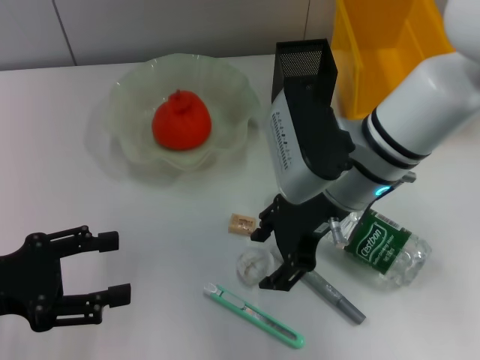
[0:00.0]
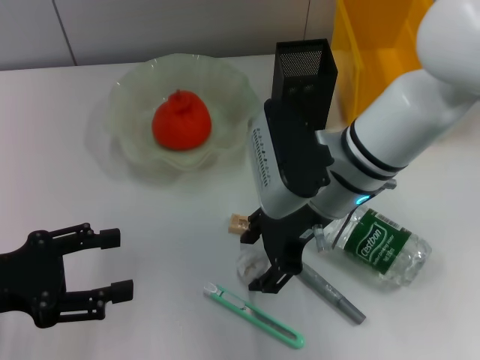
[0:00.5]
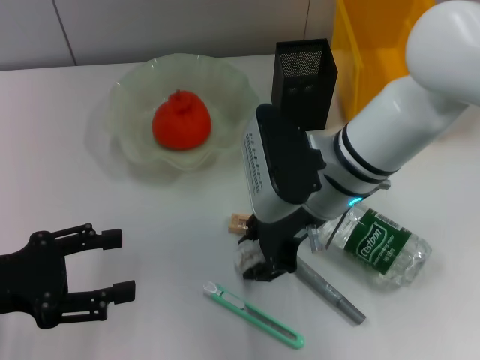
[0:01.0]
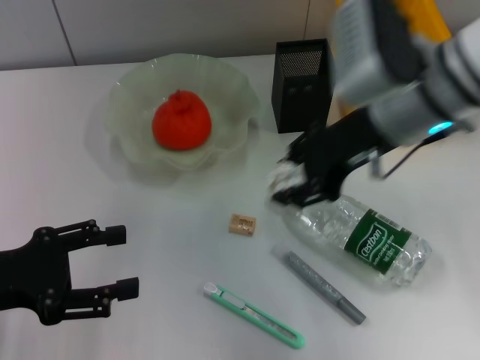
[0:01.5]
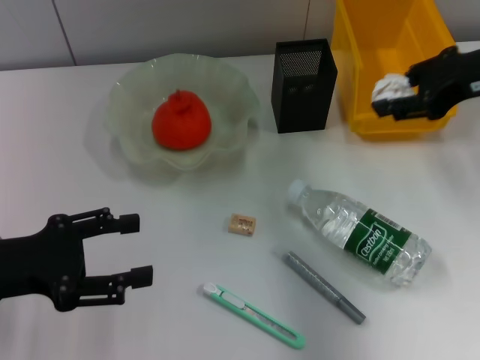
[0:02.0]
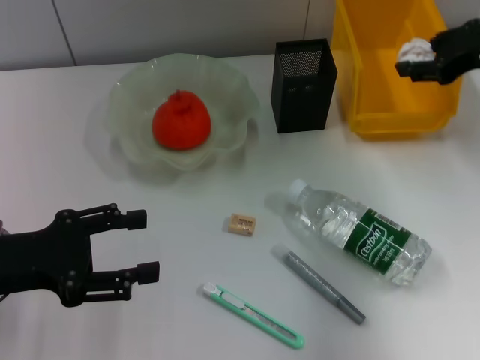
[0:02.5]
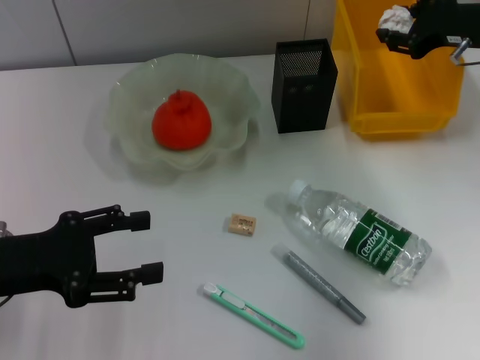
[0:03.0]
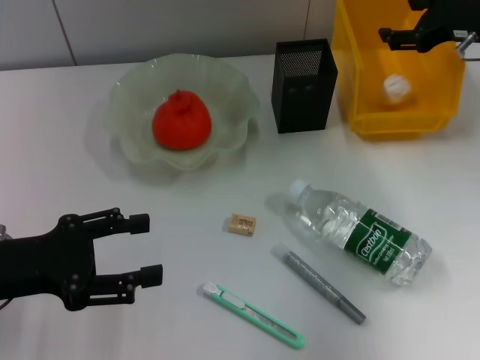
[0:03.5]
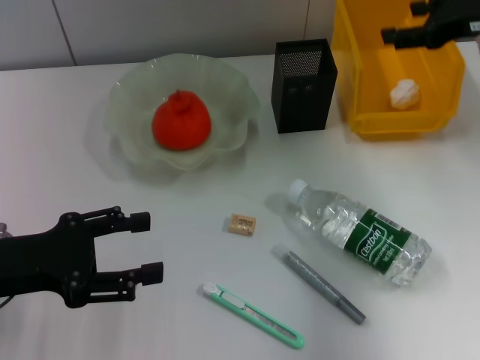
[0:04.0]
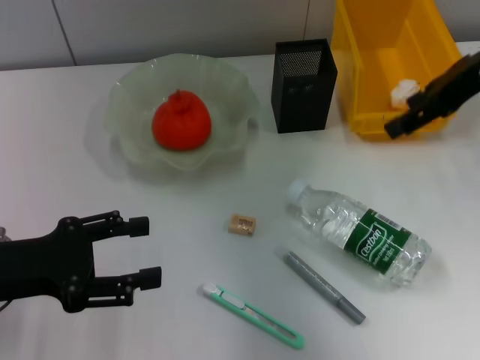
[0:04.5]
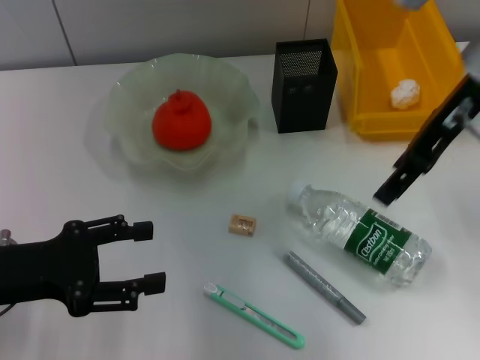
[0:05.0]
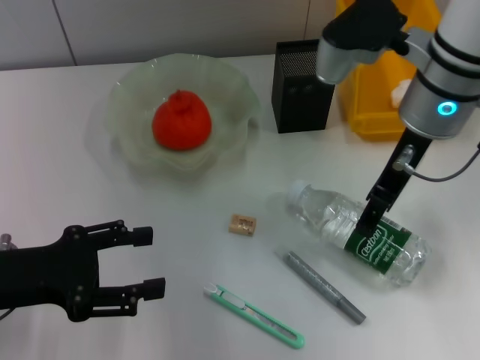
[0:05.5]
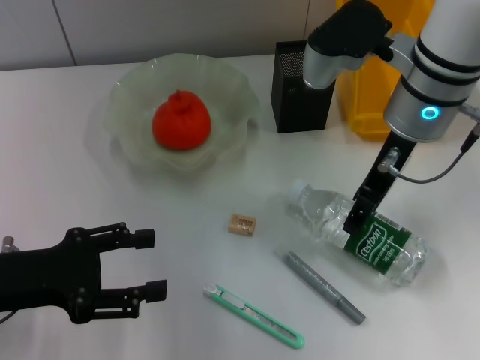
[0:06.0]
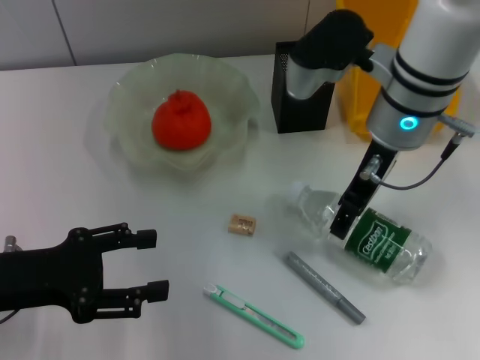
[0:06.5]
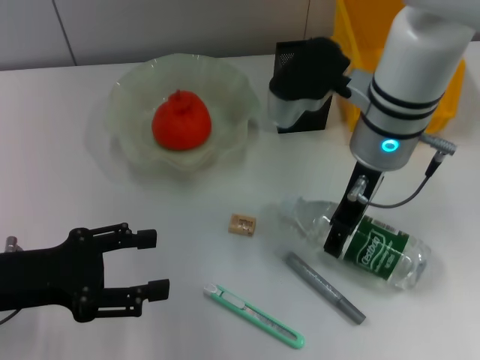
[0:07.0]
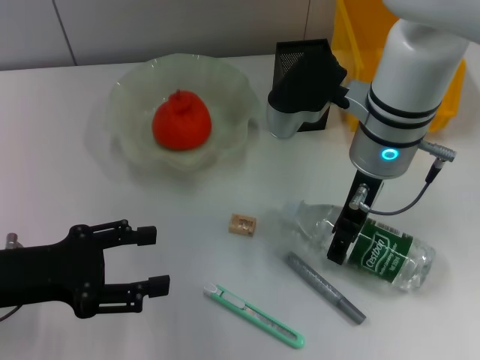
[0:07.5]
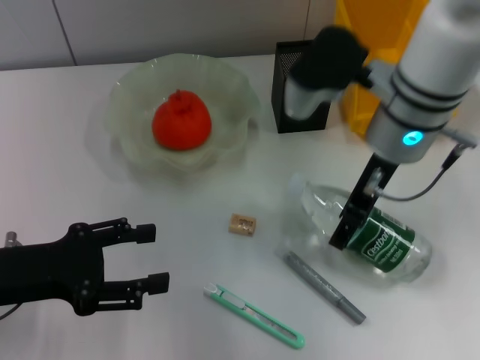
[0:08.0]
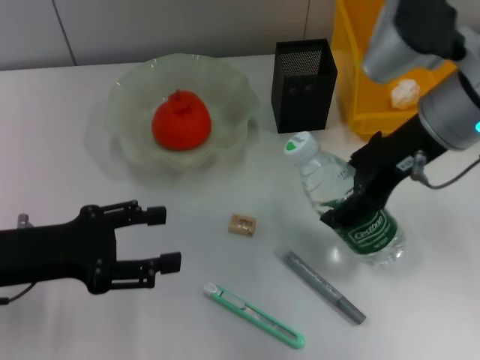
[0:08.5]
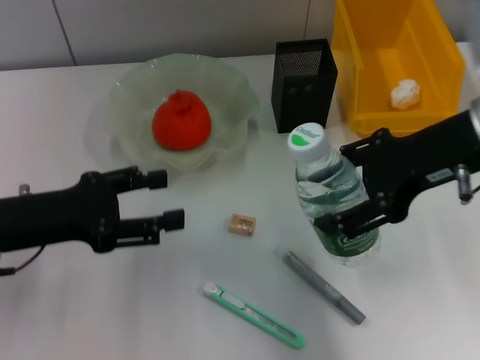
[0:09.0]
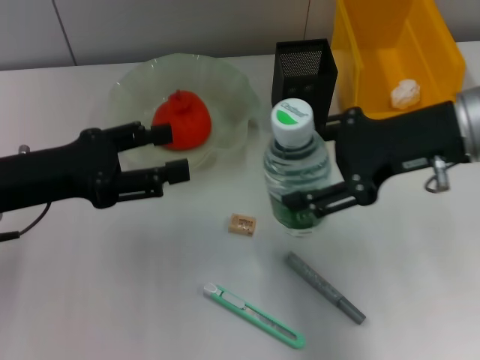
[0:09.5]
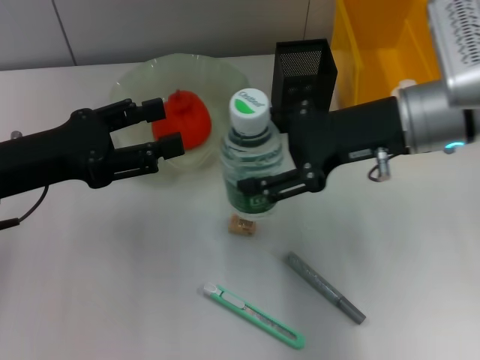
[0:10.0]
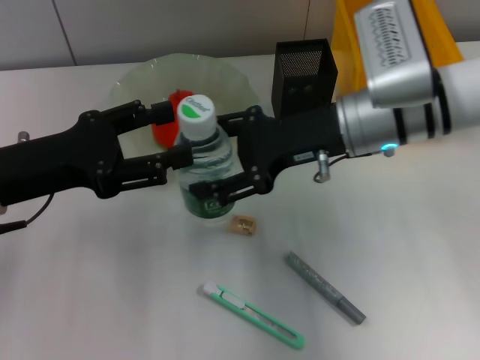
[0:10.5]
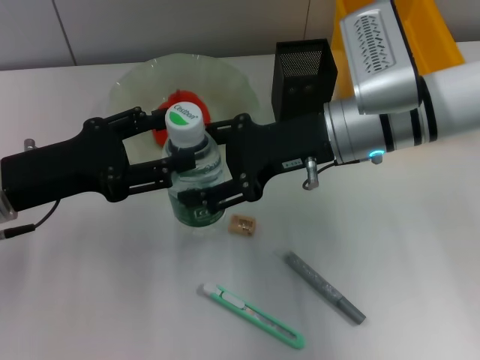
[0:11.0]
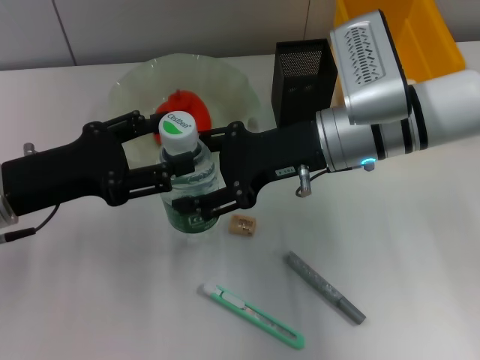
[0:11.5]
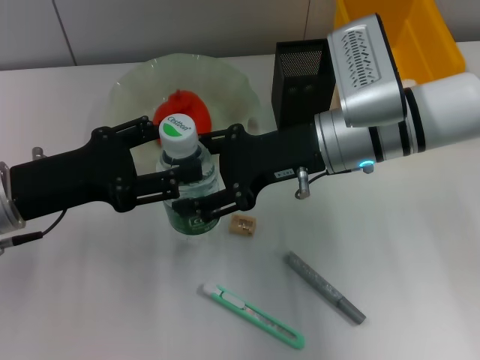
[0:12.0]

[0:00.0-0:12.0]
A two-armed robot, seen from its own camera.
Step, 0:01.5 to 0:03.0: Place the paper ball into the trash can with the right hand.
Step, 0:04.0 to 0:07.5: Grab the water bottle with the right hand.
0:00.0 to 0:02.0: The right gripper shifts approximately 20 cm to the right and upward, and closes up.
0:02.0 to 0:04.0: The right gripper opens up.
0:04.0 to 0:06.0: The right gripper moves to the left, some 15 cm.
0:06.0 to 0:08.0: The grippers make only small movements.
0:08.0 to 0:10.0: The left gripper travels forward by roughly 5 cm.
0:10.0 to 0:12.0: The right gripper moves to the left, approximately 5 cm.

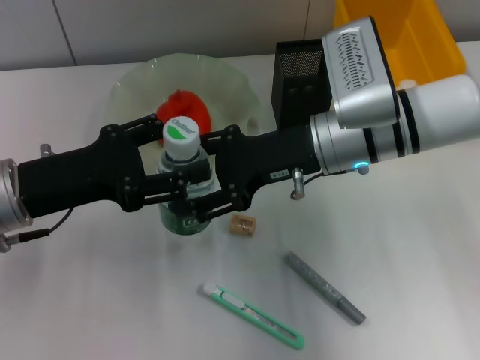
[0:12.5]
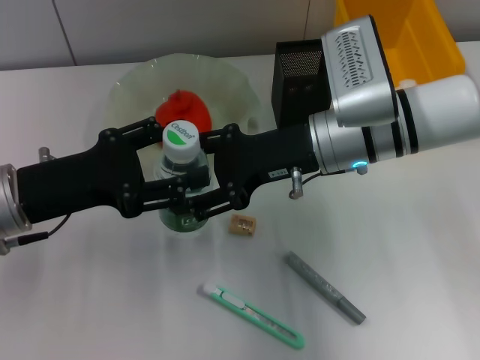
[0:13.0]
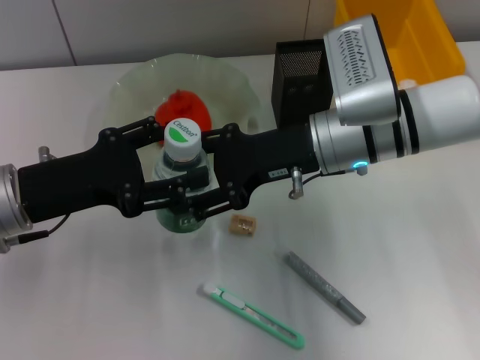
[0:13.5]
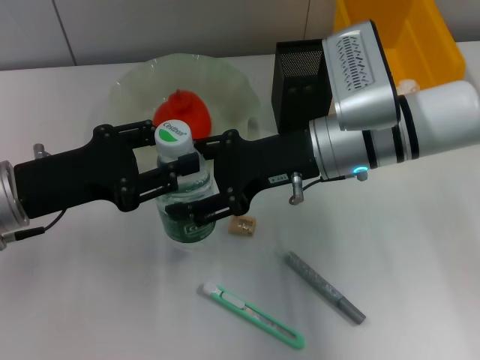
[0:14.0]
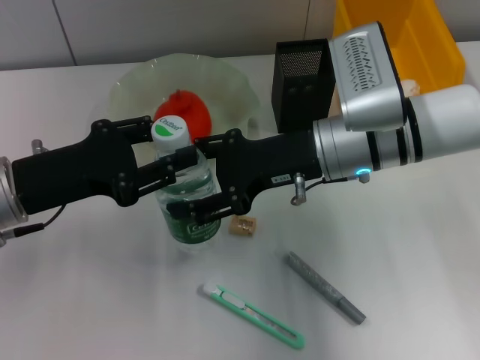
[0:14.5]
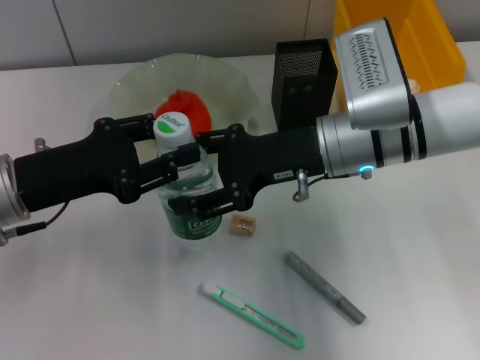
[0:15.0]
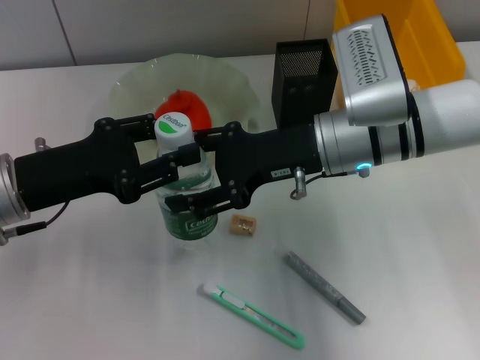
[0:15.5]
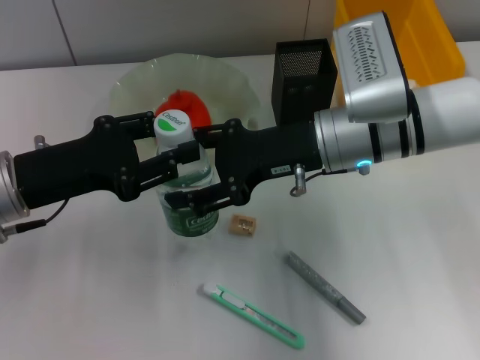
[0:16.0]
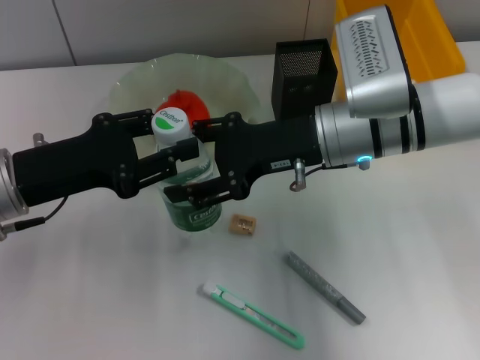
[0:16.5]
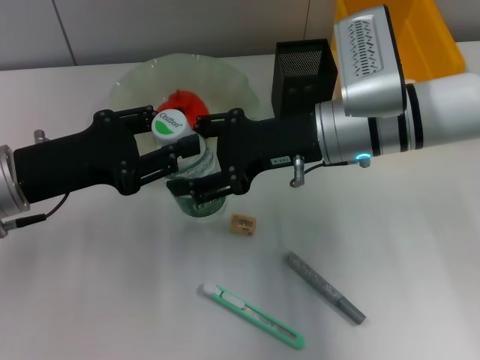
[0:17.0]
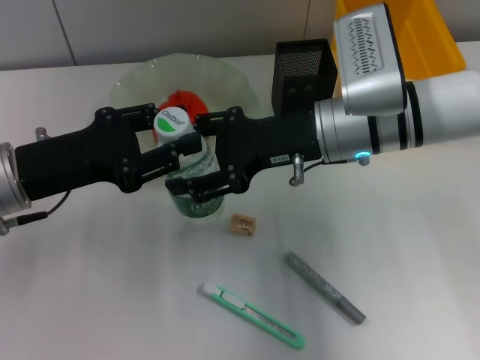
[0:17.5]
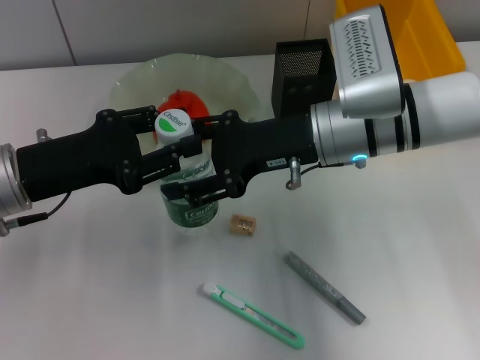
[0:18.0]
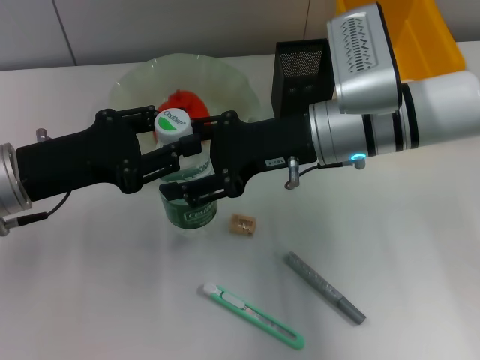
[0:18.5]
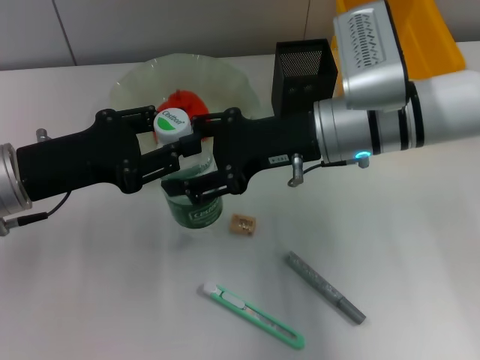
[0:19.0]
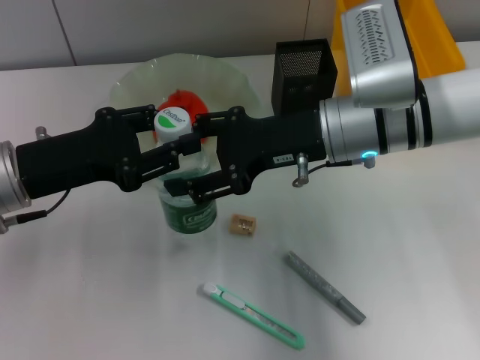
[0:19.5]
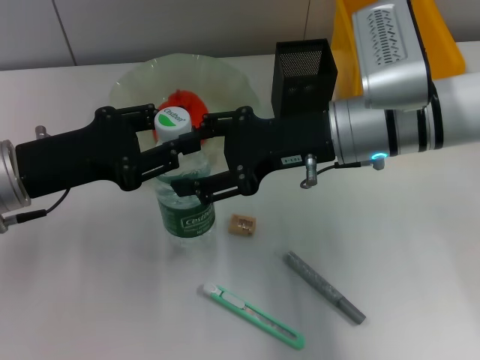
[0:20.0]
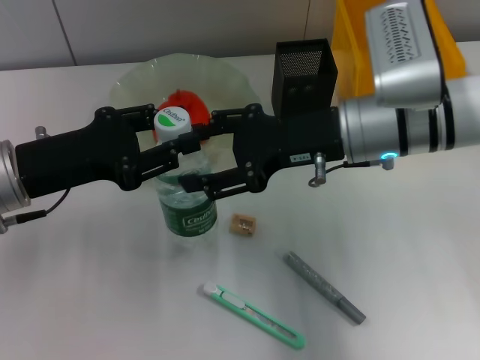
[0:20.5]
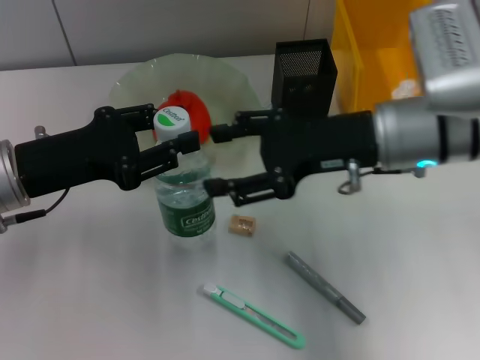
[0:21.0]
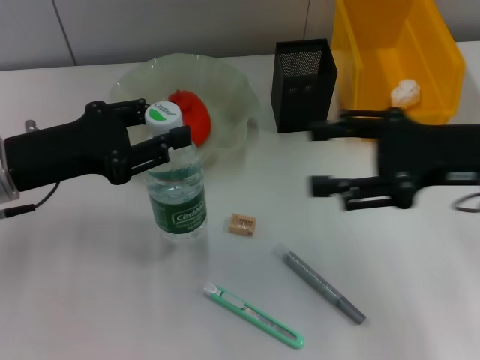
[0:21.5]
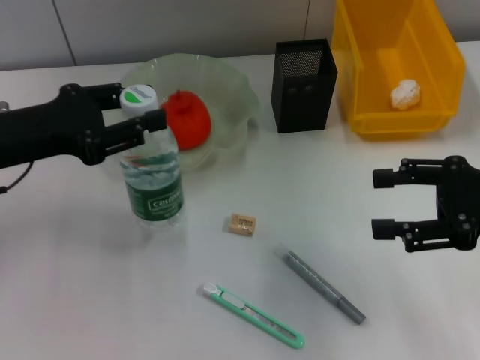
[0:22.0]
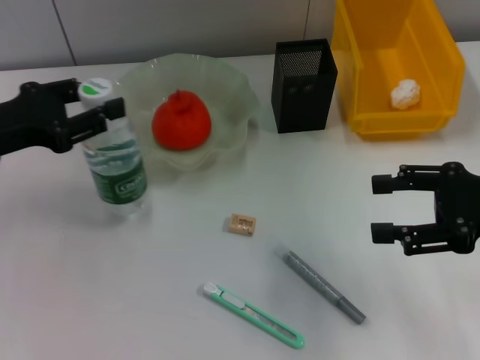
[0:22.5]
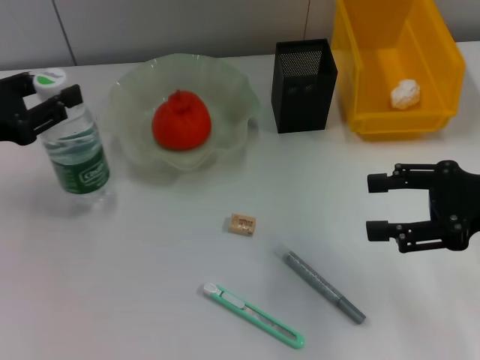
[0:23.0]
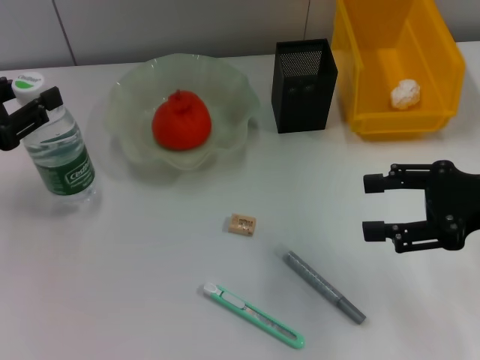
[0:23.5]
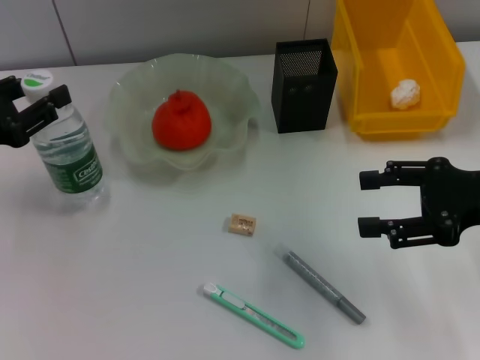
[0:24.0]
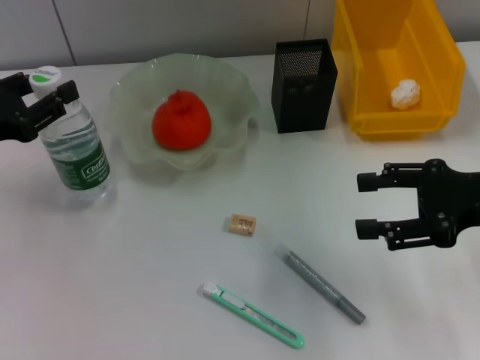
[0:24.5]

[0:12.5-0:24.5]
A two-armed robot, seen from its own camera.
Step, 0:12.5 to 0:20.5: Pass the water bottle from the right hand to the left hand.
0:12.5 to 0:14.5: The left gripper closes up.
0:14.5 to 0:16.5: Neither gripper changes place.
0:16.5 to 0:18.5: Both grippers stay about where they are.
0:18.5 to 0:20.5: The grippers move only a little.
0:20.5 to 0:22.5: The left gripper shifts approximately 5 cm to the left. Meanwhile the right gripper goes approximately 20 cm to the right and backward.
0:22.5 to 0:24.5: There are only small adjustments of the grippers.

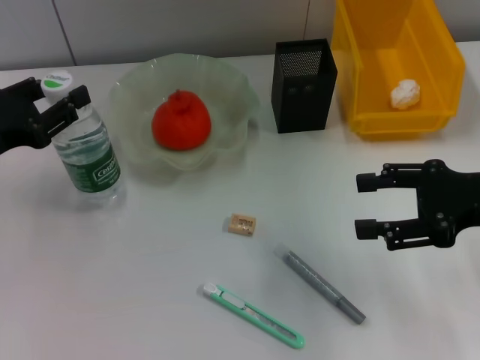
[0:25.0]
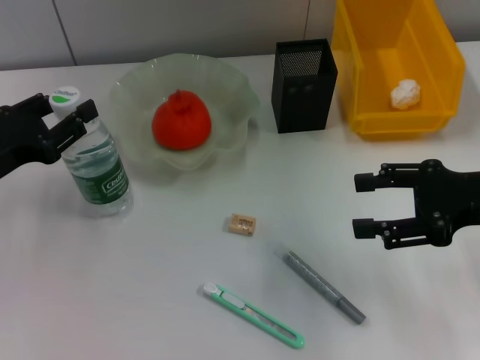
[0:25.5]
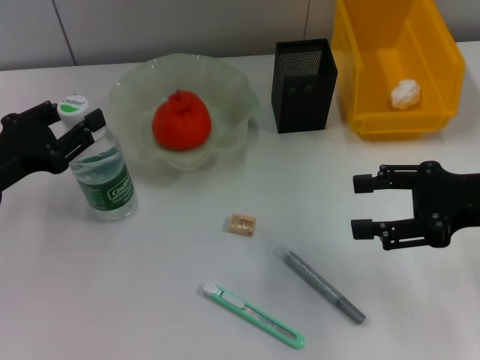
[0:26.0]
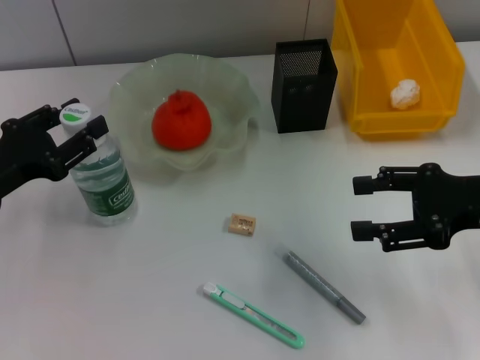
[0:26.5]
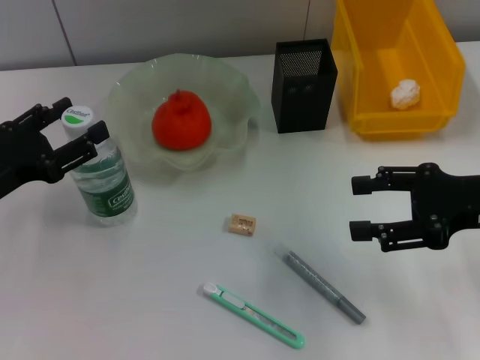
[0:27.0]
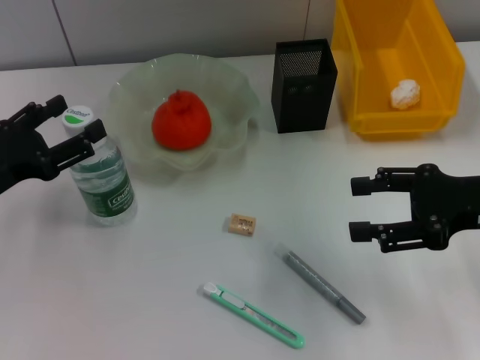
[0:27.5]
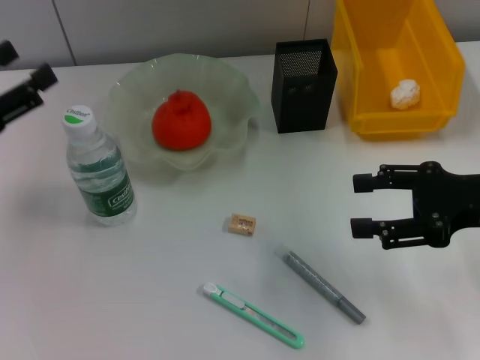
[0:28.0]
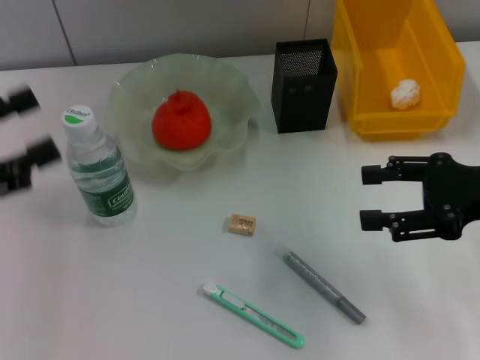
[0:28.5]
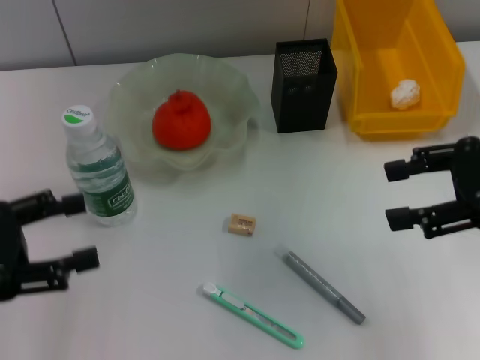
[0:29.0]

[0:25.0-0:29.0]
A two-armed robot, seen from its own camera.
Step, 0:25.0 to 0:27.0: Place the water bottle on the table with the left hand.
0:25.0 to 0:27.0: There are only small adjustments of the grippers.
0:27.0 to 0:29.0: The left gripper shifts some 5 cm backward, while the right gripper heads upward, covering about 5 cm.
